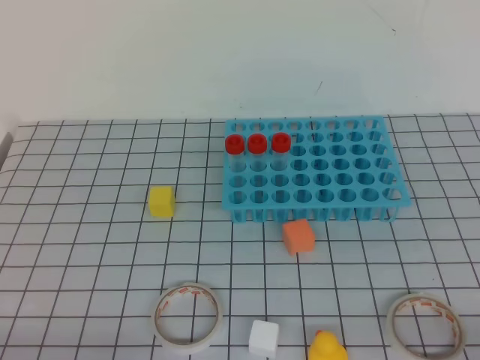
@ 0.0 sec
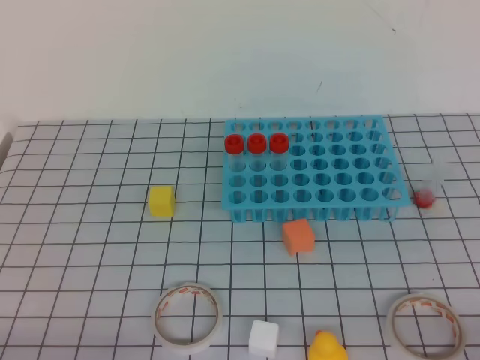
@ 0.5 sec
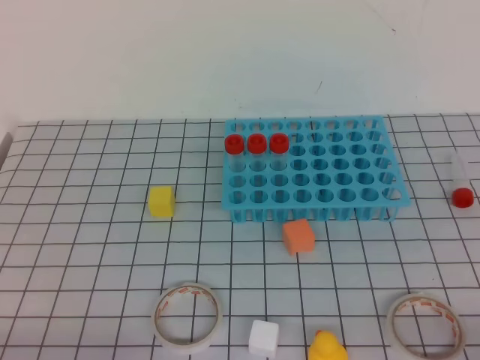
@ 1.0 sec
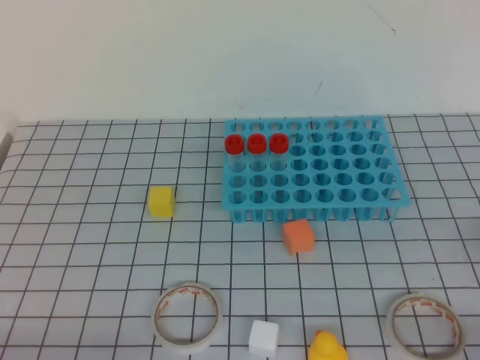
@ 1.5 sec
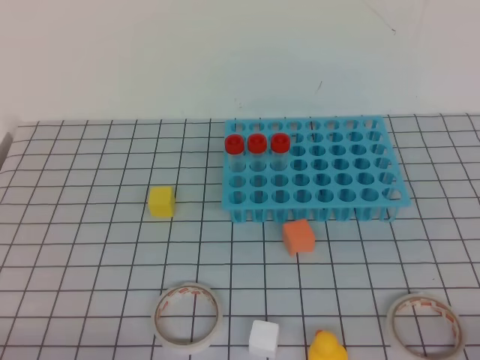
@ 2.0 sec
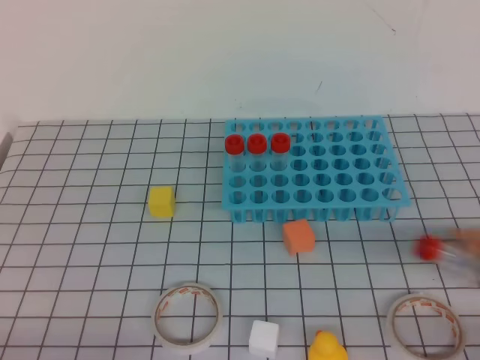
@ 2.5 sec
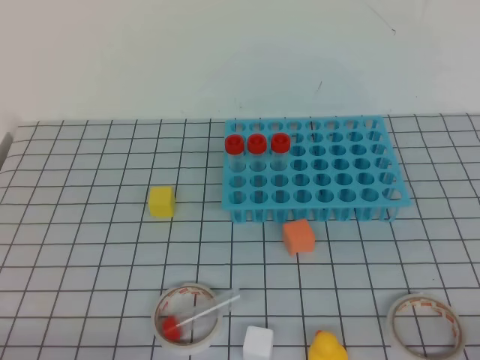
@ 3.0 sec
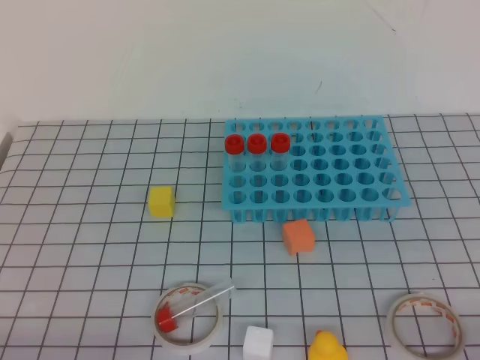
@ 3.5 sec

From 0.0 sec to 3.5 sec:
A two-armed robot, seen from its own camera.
From 0.0 sec to 3.5 sec: Both grippers stay about where they are.
